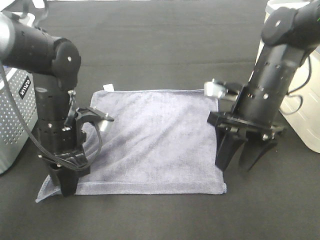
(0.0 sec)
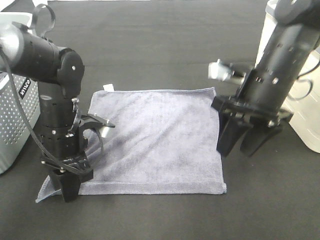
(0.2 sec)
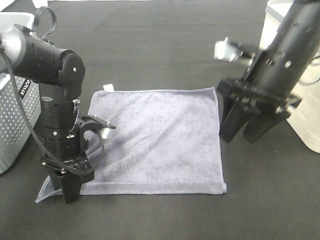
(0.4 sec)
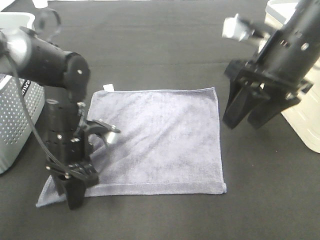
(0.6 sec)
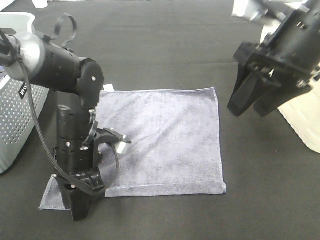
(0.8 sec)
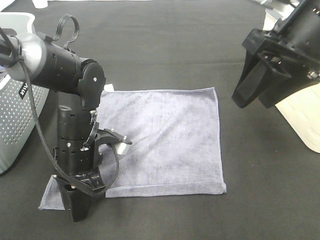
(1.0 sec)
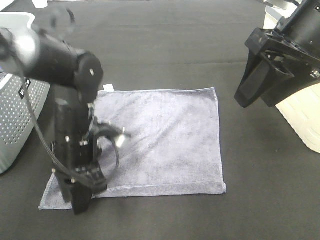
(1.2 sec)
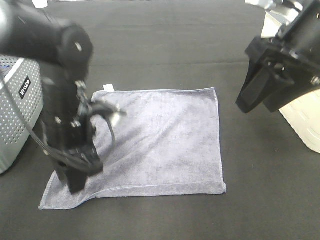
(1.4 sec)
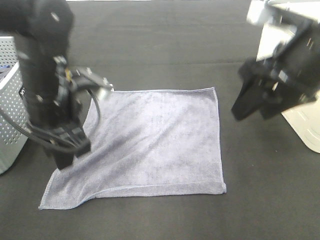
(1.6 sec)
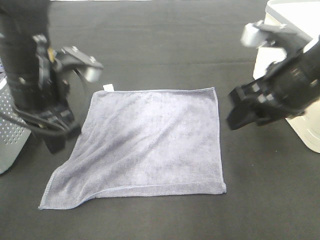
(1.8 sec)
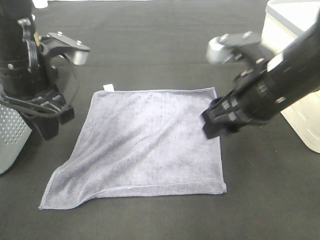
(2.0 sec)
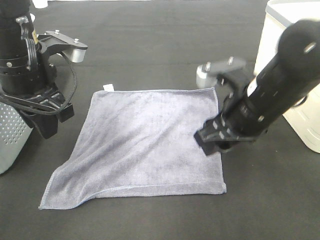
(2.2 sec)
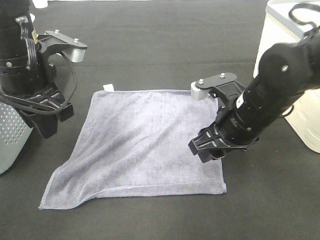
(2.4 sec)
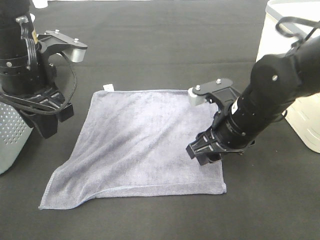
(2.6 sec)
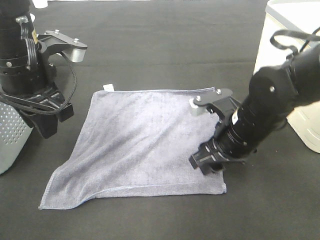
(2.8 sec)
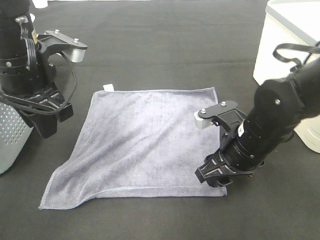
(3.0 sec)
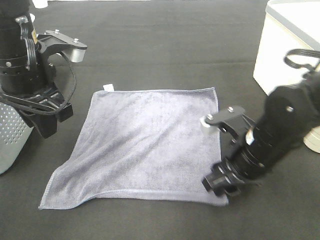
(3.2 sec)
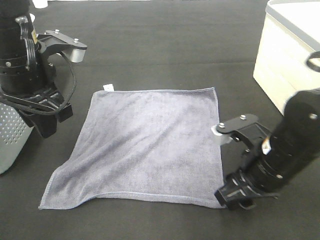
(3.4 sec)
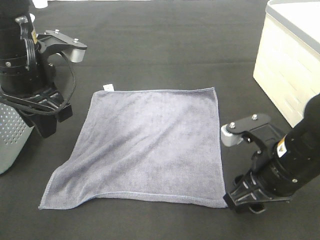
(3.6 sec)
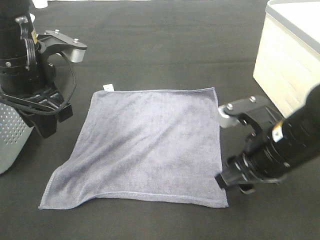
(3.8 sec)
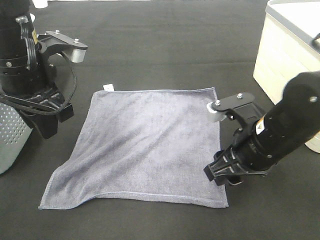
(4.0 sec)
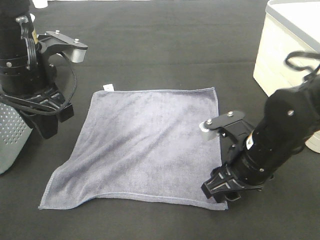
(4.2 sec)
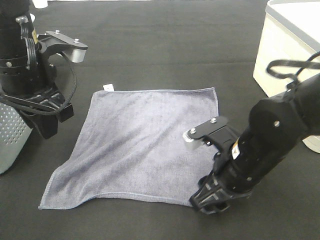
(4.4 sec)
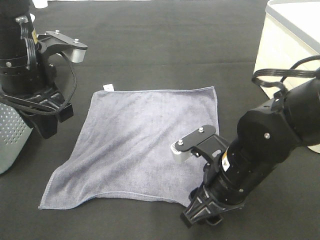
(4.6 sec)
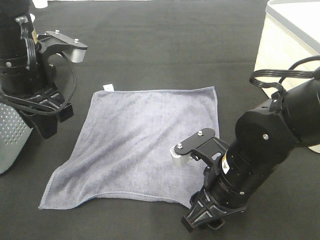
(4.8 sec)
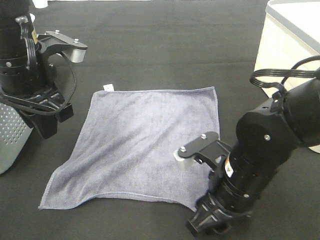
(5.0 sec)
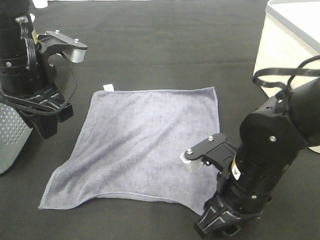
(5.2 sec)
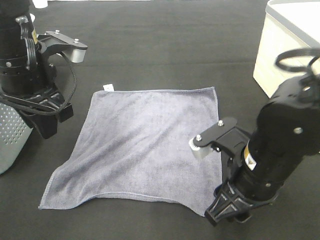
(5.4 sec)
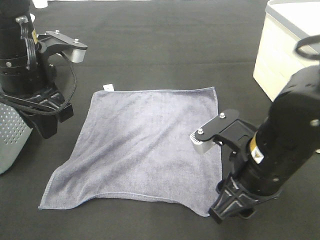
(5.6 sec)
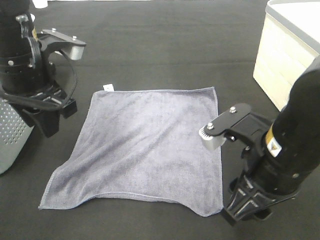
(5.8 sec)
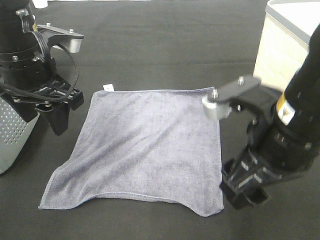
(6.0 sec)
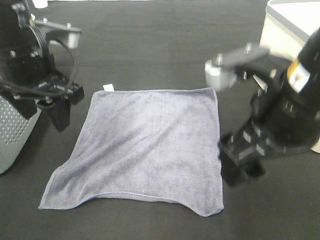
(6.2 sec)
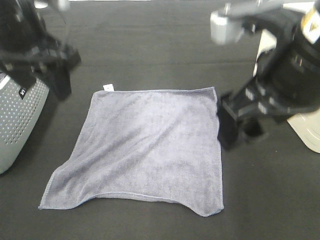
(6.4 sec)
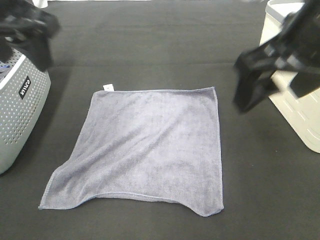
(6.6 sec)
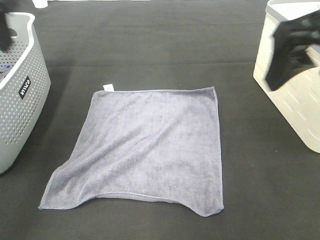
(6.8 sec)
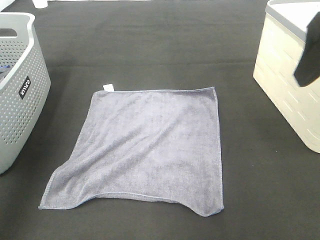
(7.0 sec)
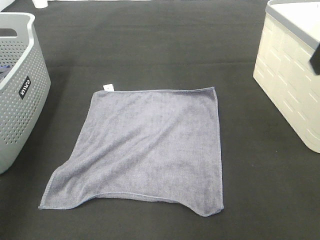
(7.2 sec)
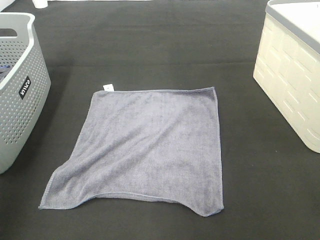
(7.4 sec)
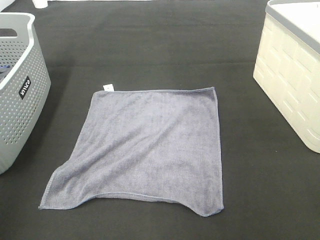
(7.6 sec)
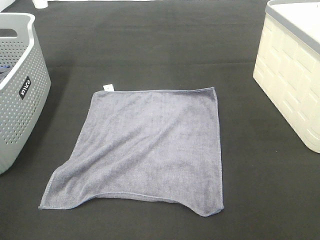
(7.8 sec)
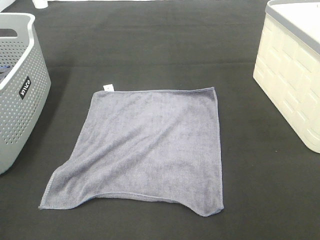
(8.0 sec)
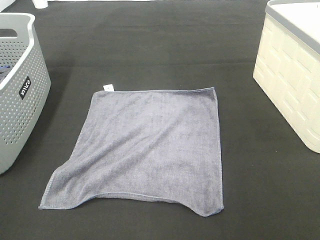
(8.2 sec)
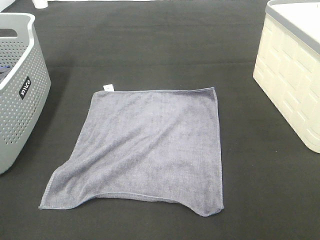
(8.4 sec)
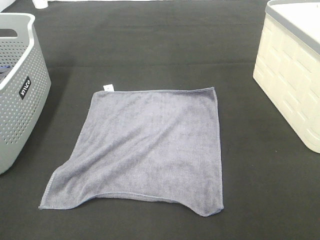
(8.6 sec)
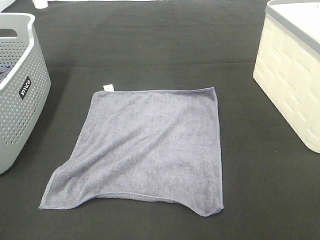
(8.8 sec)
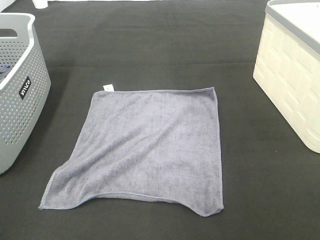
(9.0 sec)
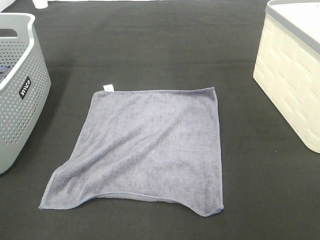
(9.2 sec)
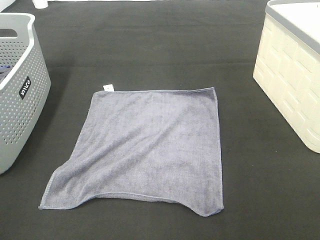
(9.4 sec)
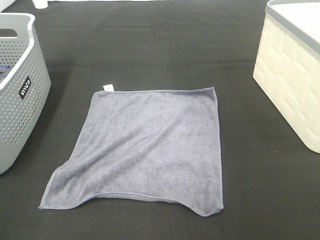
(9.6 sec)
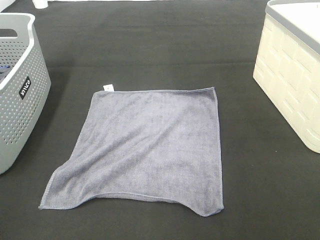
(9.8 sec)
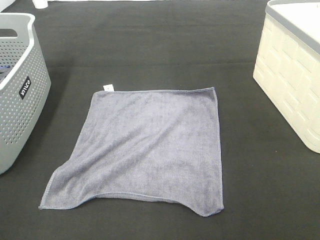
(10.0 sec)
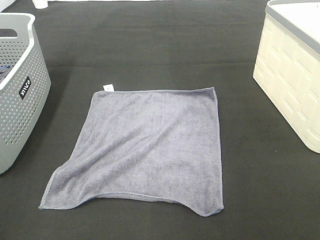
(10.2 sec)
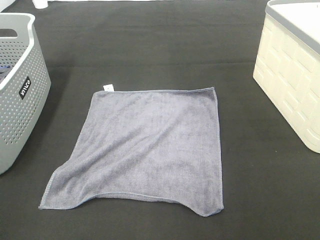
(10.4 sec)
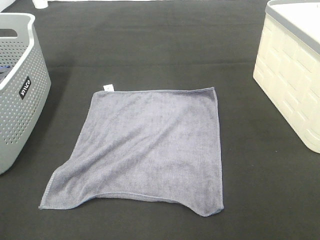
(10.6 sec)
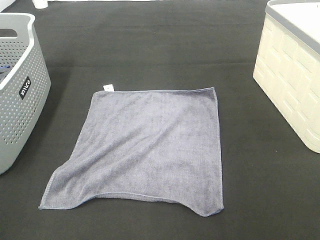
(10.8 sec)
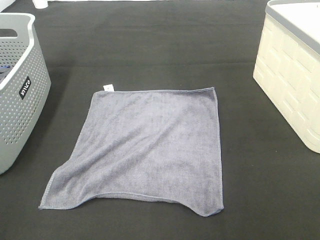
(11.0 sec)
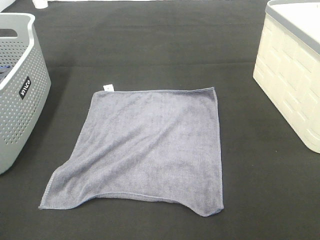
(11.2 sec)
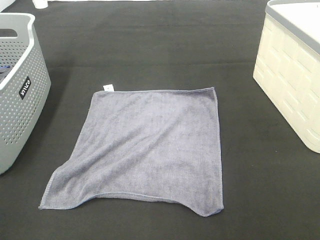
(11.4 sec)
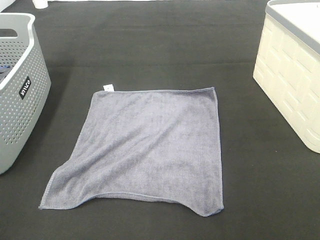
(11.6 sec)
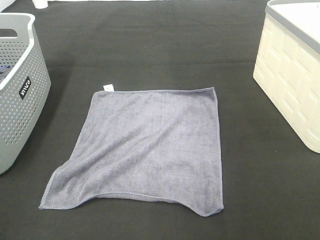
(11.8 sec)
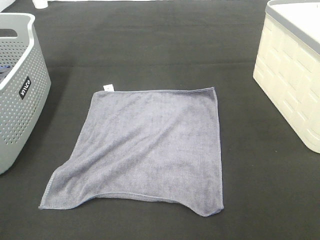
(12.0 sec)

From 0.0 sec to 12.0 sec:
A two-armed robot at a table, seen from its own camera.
Task of the whole recording: Remove the towel and place it.
From 0.0 sec to 1.6 sec: The right gripper moves upward and backward, approximately 10 cm. The left gripper shifts about 10 cm upward.
From 1.6 sec to 3.0 sec: The right gripper moves downward, approximately 15 cm.
From 4.4 sec to 6.0 sec: The right gripper moves upward, about 10 cm.
From 6.0 sec to 7.6 sec: The right gripper shifts about 20 cm upward, to the right and backward; the left gripper is displaced backward, to the left and upward by about 30 cm.
From 9.0 sec to 10.4 sec: Both grippers stay about where they are.

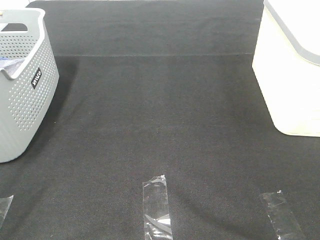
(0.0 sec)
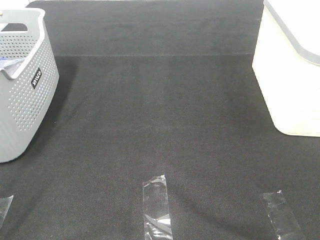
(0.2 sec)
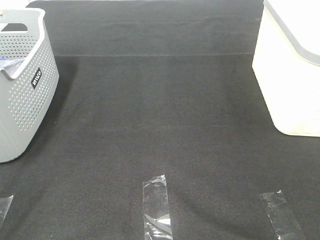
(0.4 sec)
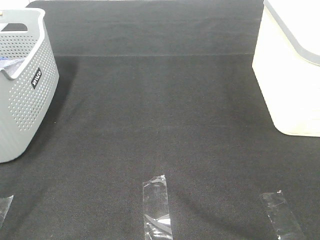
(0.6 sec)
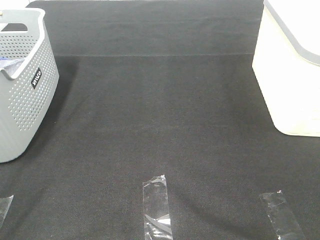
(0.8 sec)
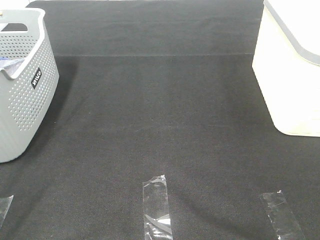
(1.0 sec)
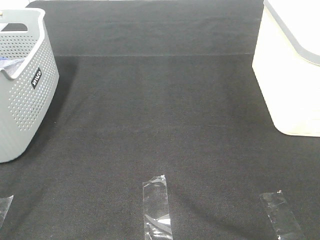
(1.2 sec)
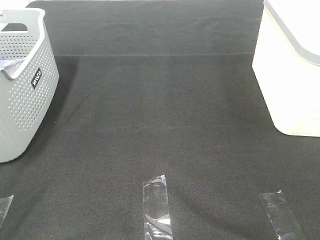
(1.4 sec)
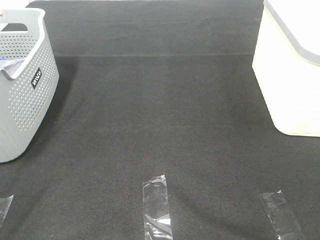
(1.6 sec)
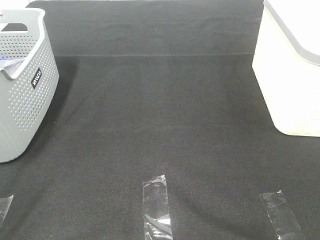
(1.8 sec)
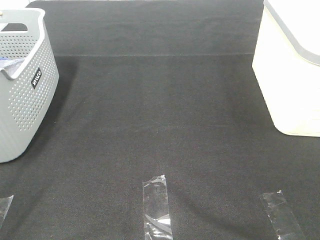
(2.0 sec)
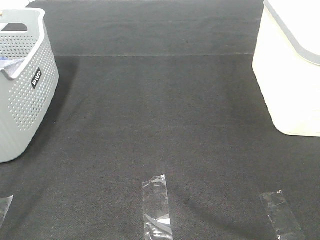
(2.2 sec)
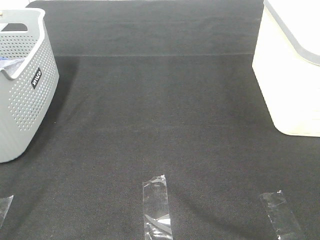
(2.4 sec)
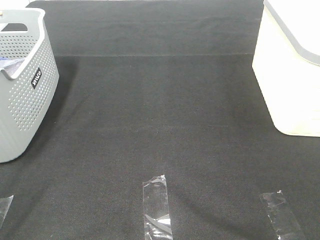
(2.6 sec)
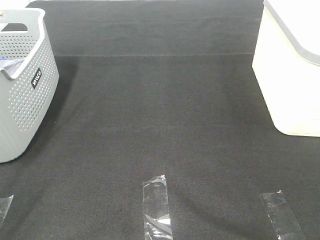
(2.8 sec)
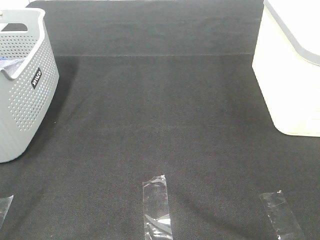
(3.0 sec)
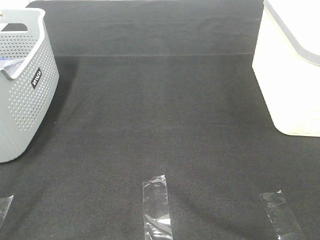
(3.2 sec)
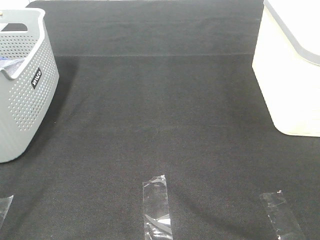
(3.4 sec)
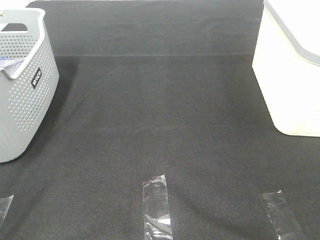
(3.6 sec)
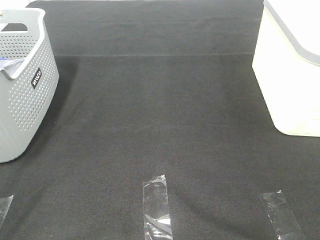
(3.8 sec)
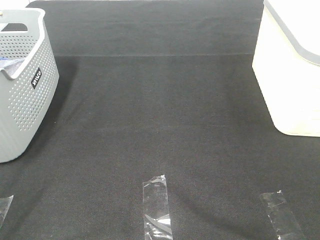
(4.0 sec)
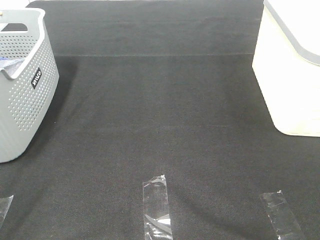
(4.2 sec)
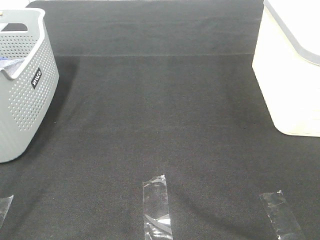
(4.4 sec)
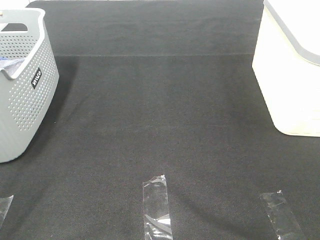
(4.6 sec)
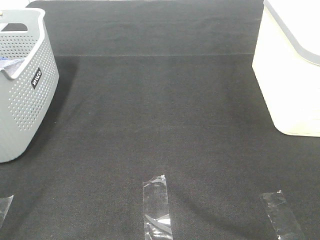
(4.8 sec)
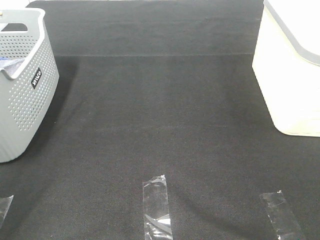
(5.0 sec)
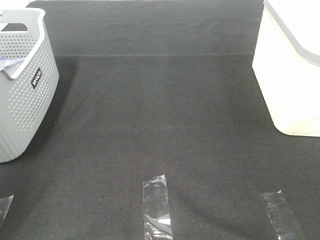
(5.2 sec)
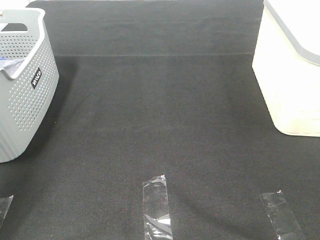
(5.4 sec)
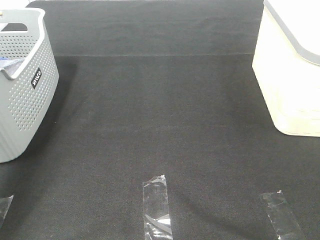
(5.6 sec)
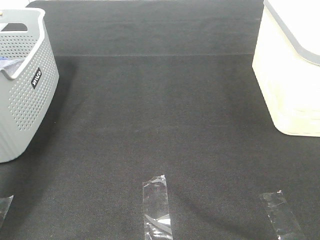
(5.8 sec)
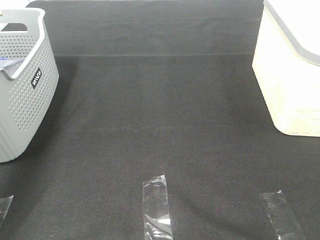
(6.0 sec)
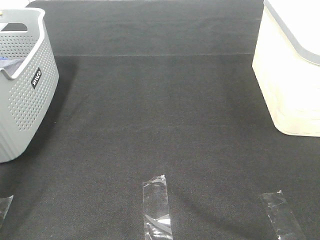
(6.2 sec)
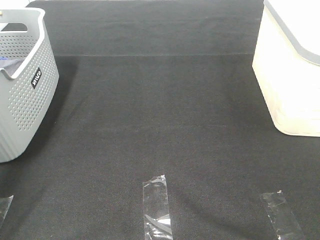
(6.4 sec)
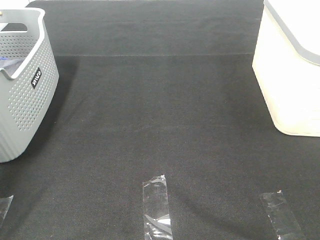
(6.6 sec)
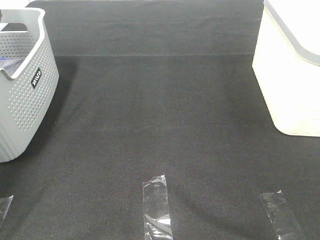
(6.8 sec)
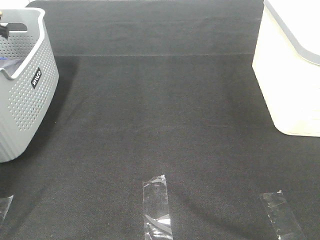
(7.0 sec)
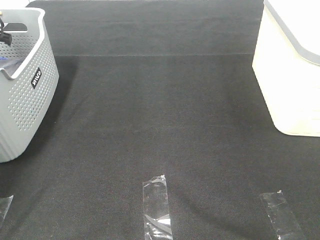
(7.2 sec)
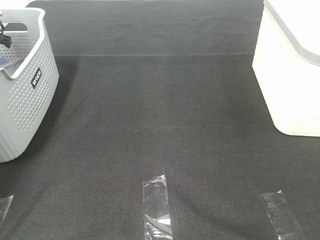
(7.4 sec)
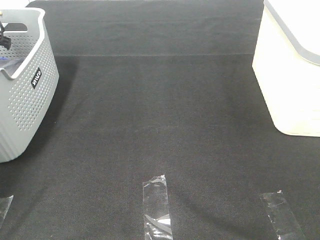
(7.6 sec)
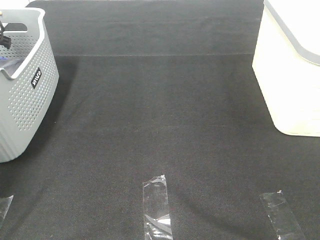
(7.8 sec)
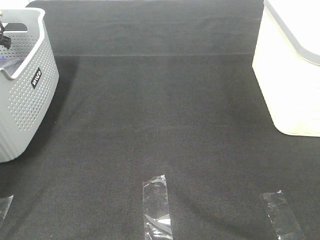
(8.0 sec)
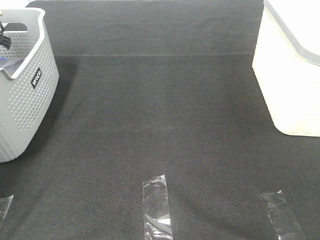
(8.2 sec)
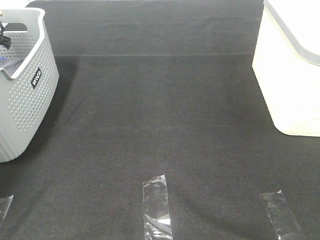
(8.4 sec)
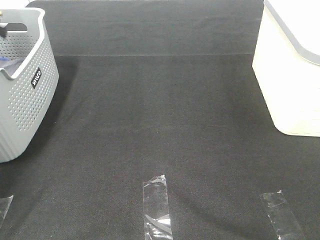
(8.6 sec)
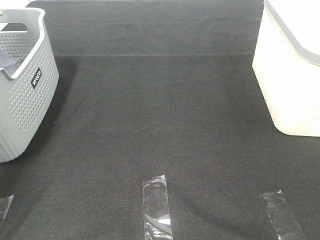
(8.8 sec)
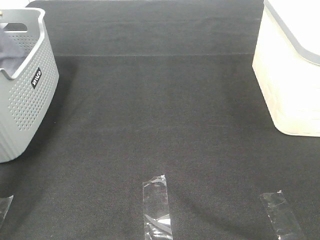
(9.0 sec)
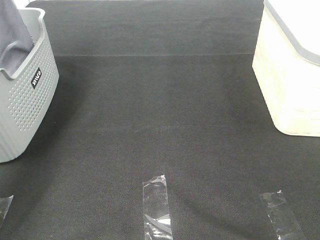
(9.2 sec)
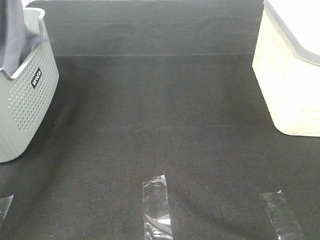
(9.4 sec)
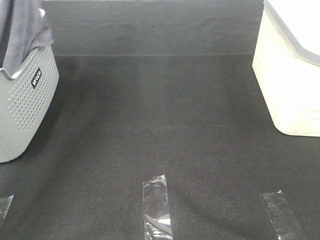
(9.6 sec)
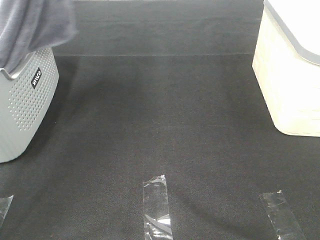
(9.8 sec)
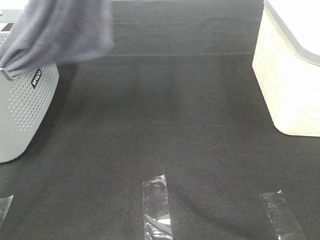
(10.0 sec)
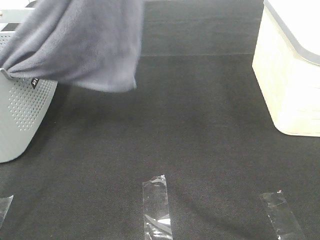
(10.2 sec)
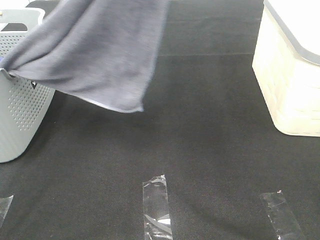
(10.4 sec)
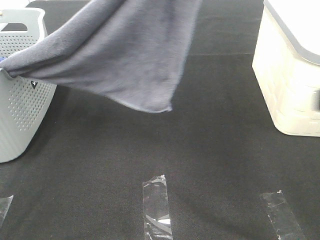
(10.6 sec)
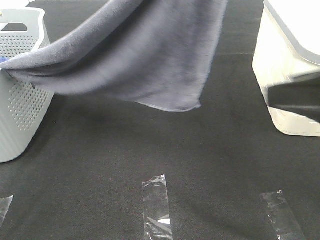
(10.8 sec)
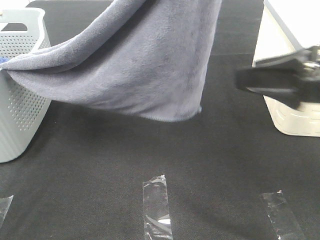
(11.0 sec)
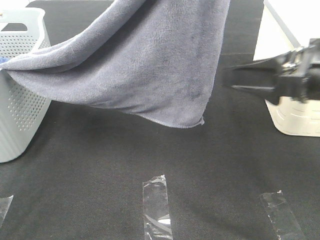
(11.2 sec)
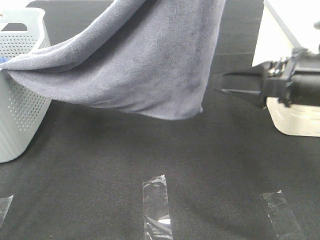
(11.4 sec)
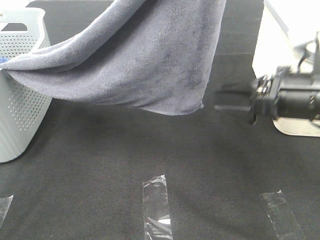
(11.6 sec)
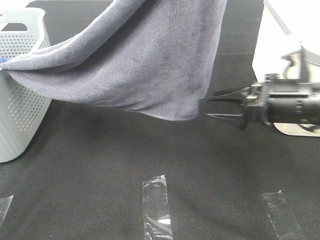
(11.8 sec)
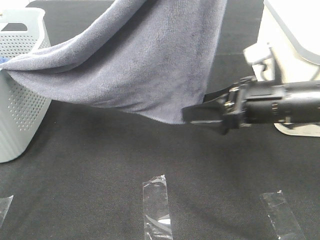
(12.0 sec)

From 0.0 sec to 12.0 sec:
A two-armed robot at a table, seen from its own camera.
Task of the whole recording: Remove the towel and place it.
Step, from 9.0 sec to 11.8 sec: Right hand: grab a corner of the grey towel and straighten it.
From 0.0 sec to 4.4 sec: Both grippers stay about where they are.
From 4.4 sec to 6.0 sec: The left gripper is displaced forward by about 35 cm.
From 6.0 sec to 7.6 sec: The left gripper goes some 20 cm forward and downward.
From 7.6 sec to 9.0 sec: The left gripper goes approximately 15 cm upward, and closes up.
From 9.0 sec to 10.4 sec: The right gripper moves forward, approximately 10 cm. Meanwhile the left gripper shifts roughly 35 cm to the right and backward.
From 10.4 sec to 12.0 sec: The right gripper shifts some 25 cm forward, downward and to the left.
